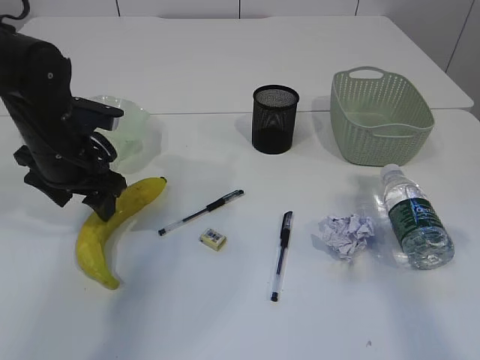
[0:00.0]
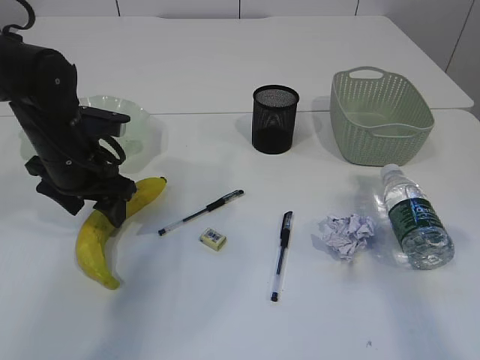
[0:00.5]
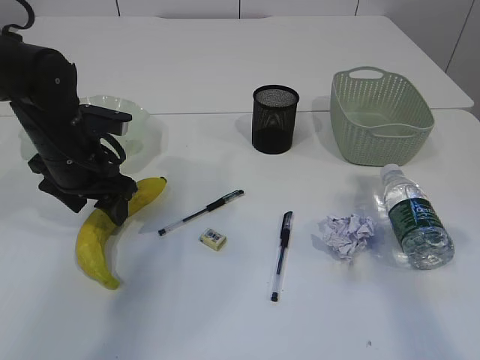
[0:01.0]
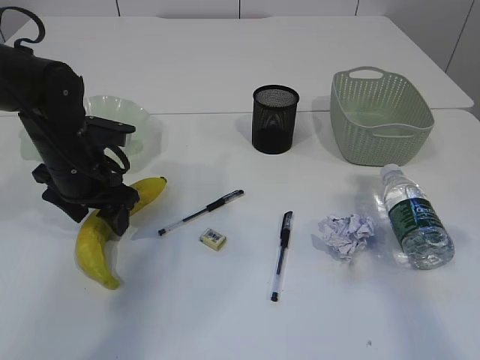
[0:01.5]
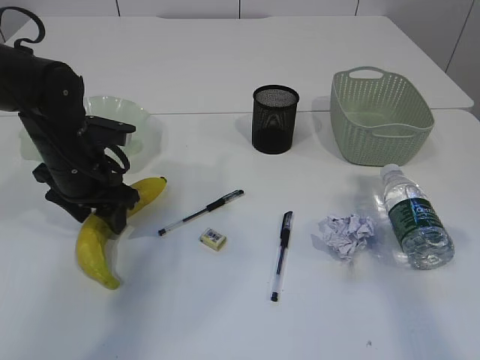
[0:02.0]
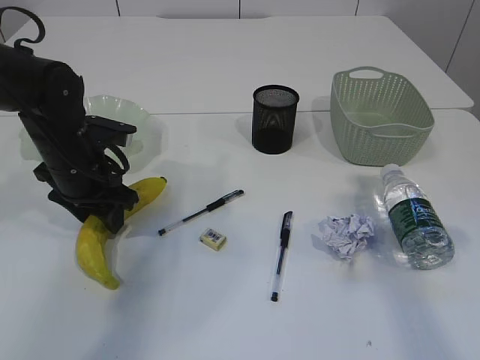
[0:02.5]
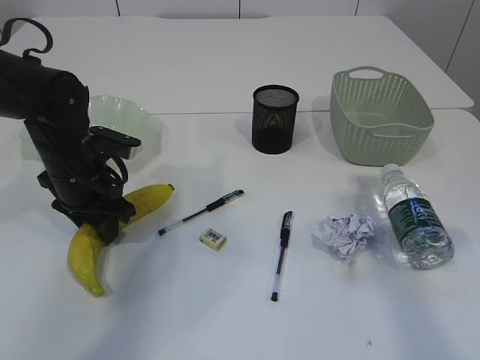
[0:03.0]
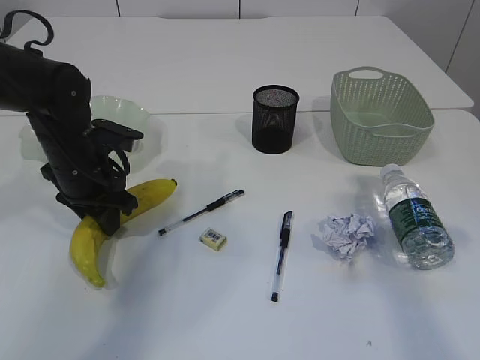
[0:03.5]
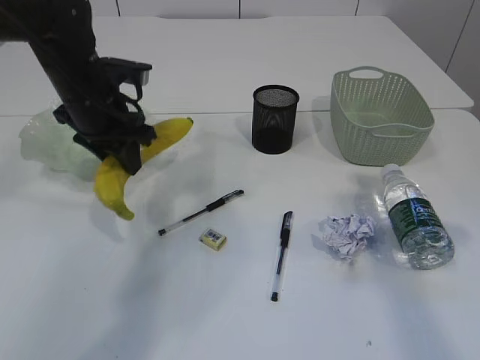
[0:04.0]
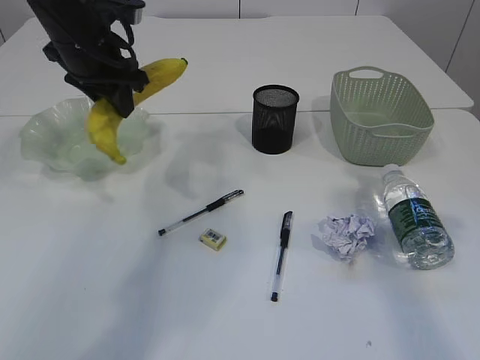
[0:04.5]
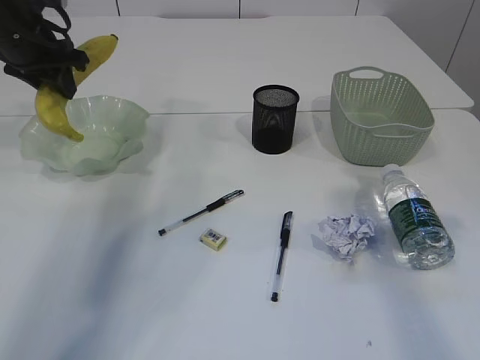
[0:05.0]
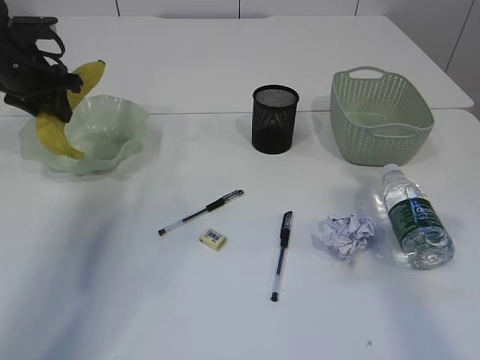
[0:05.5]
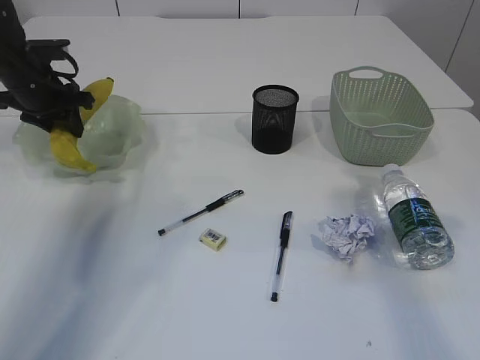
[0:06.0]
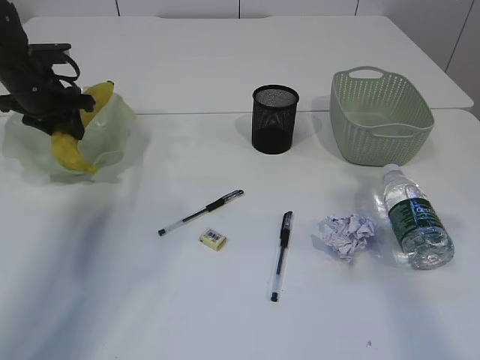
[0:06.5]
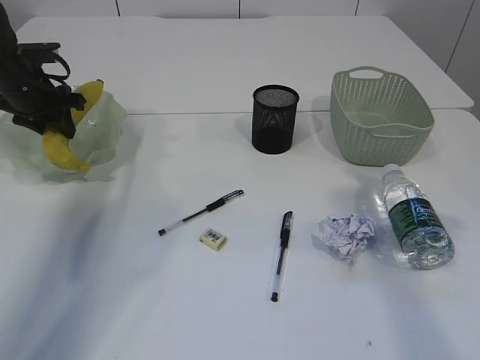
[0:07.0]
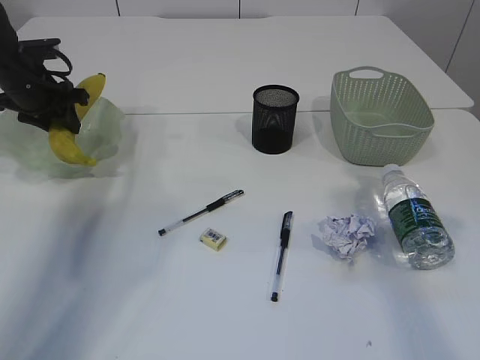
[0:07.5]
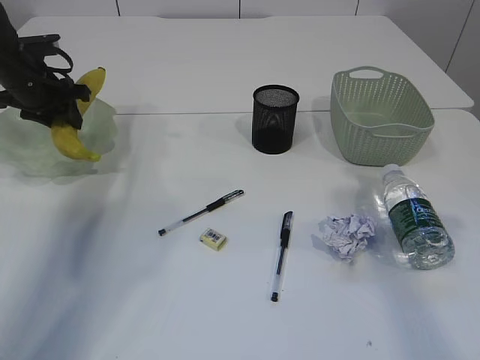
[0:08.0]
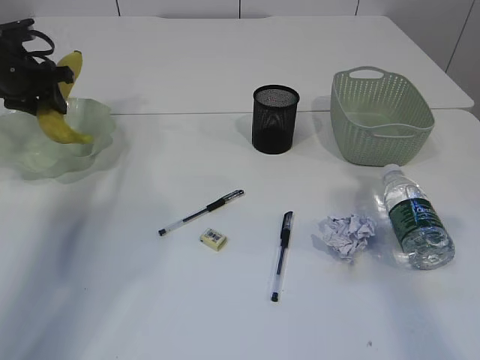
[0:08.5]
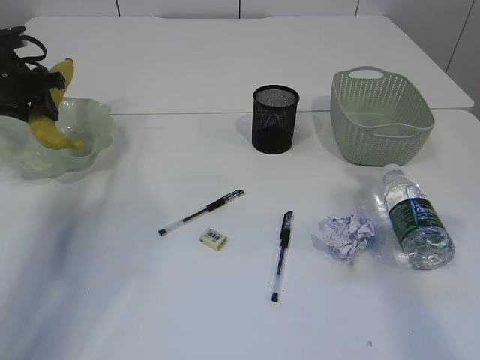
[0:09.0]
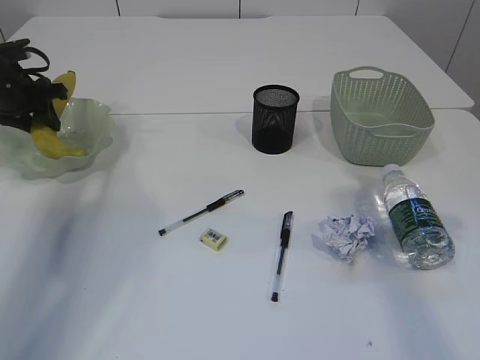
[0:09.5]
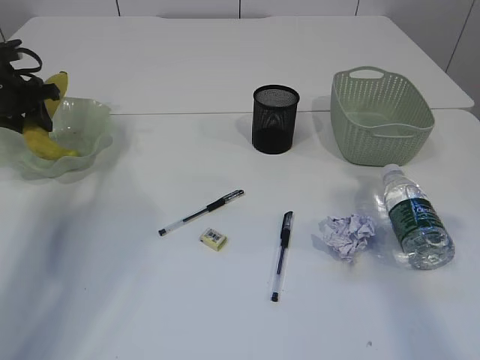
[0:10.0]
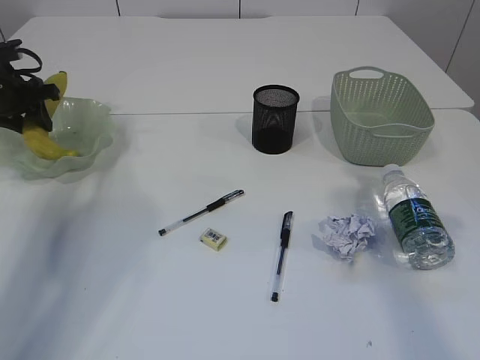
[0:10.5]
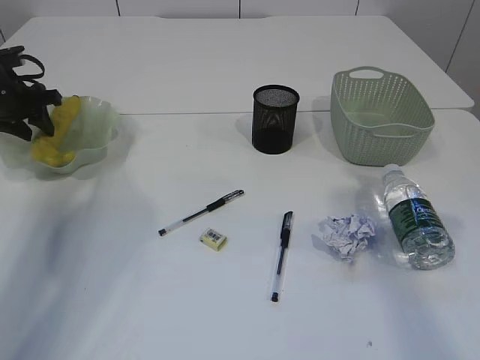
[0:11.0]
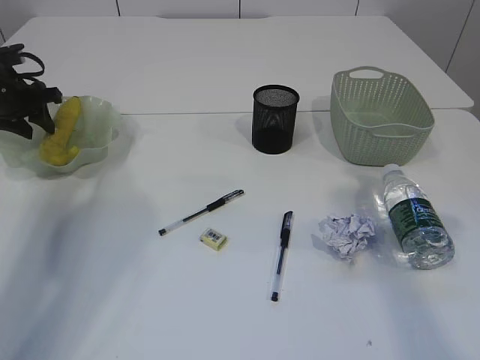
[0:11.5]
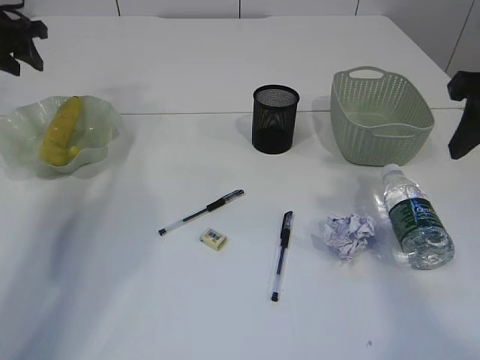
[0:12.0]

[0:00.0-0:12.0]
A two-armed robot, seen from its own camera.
Step, 0:04.0 to 0:11.5: Place the banana in the plate.
0:00.0 to 0:02.0: The grippers make only small movements.
0:02.0 to 0:04.0: The left gripper heads upward, covering about 5 cm, and closes up.
0:04.0 to 0:06.0: The left gripper is displaced to the left and forward by approximately 15 cm.
0:06.0 to 0:08.0: The grippers make only small movements.
0:08.0 to 0:10.0: The left gripper travels to the left by some 5 cm.
0:10.0 to 0:12.0: The left gripper is displaced upward by roughly 10 cm.

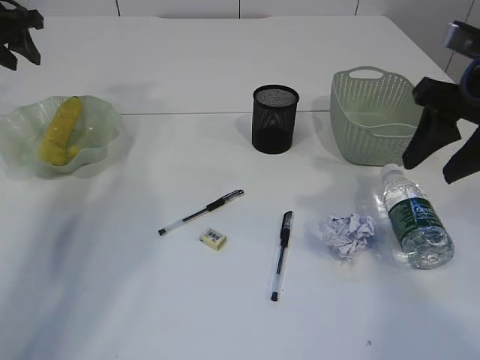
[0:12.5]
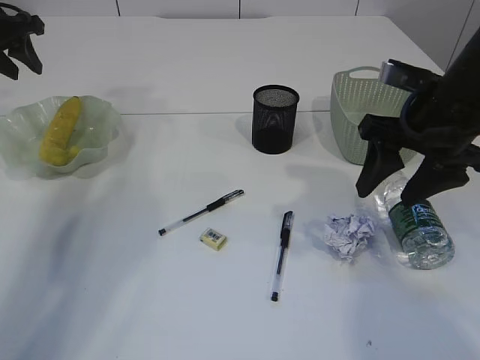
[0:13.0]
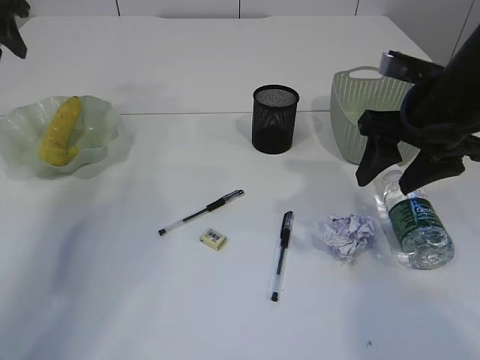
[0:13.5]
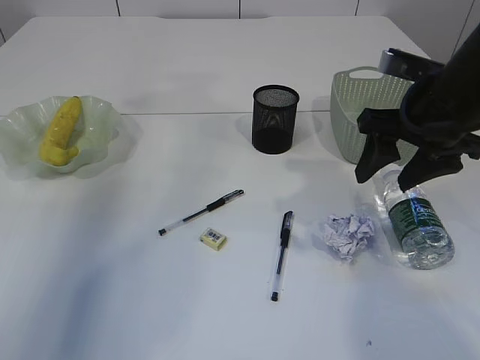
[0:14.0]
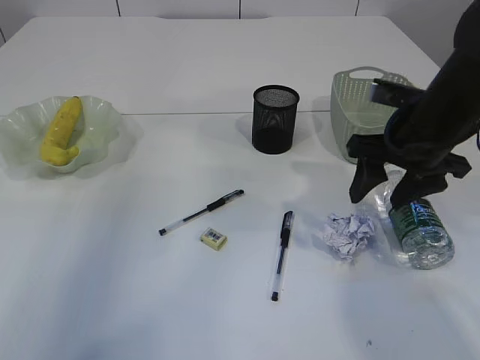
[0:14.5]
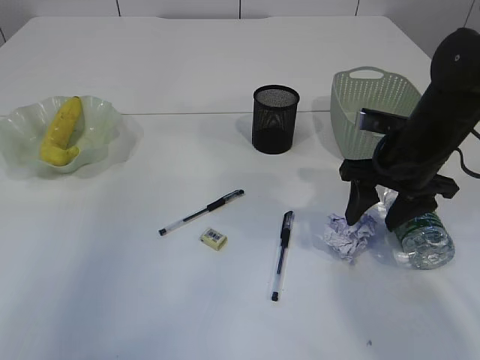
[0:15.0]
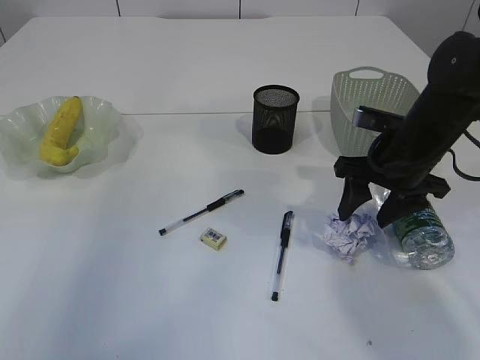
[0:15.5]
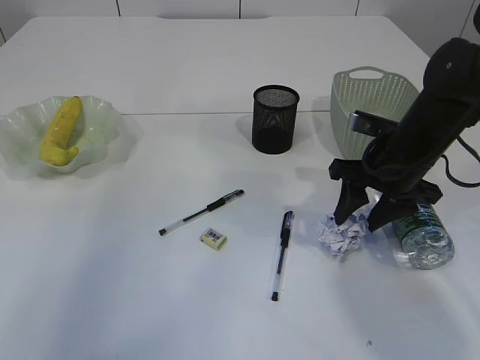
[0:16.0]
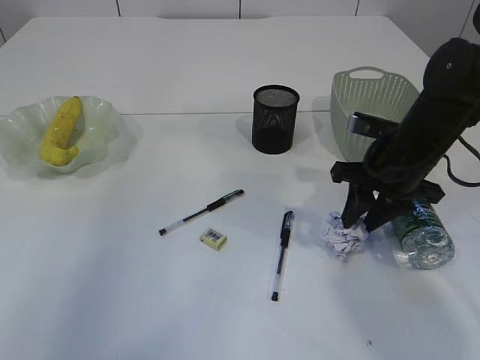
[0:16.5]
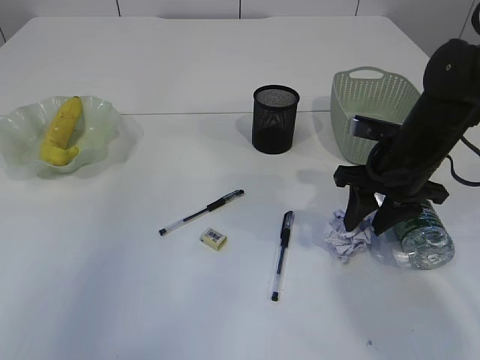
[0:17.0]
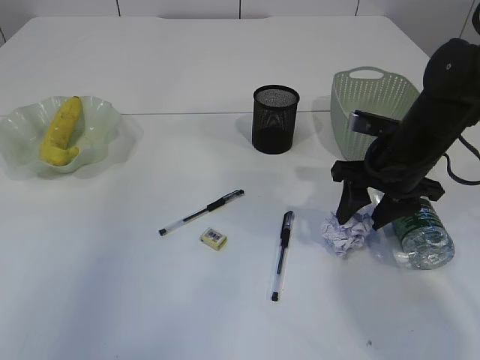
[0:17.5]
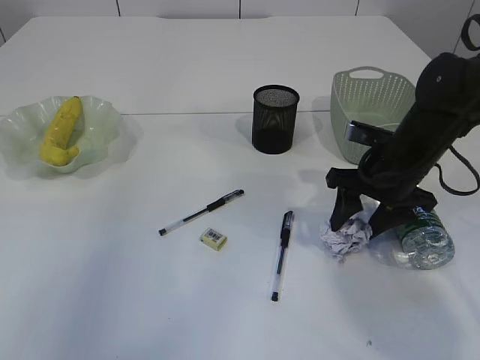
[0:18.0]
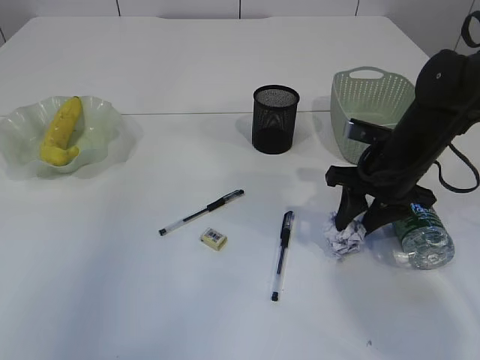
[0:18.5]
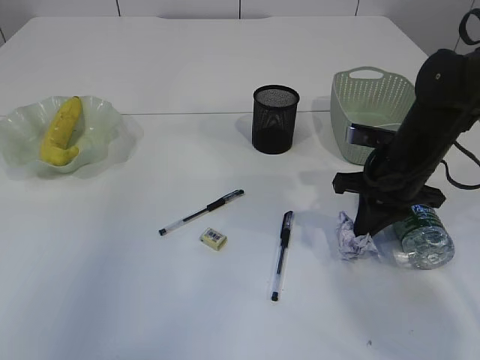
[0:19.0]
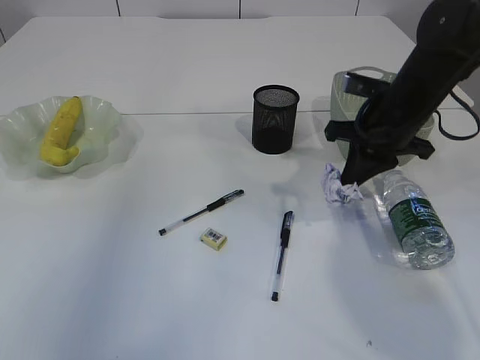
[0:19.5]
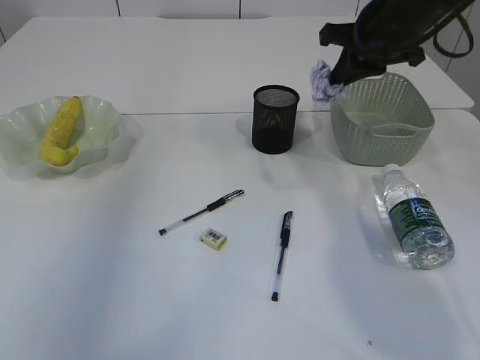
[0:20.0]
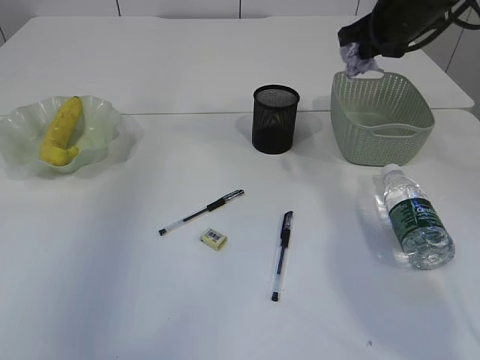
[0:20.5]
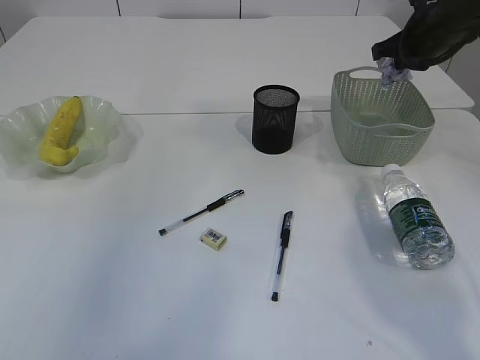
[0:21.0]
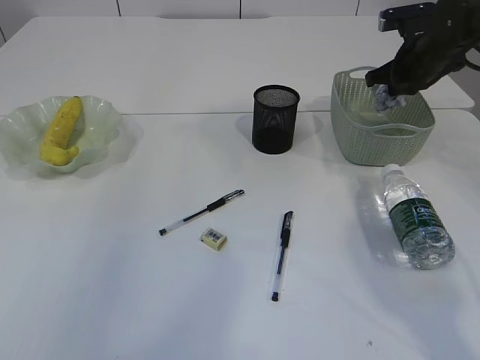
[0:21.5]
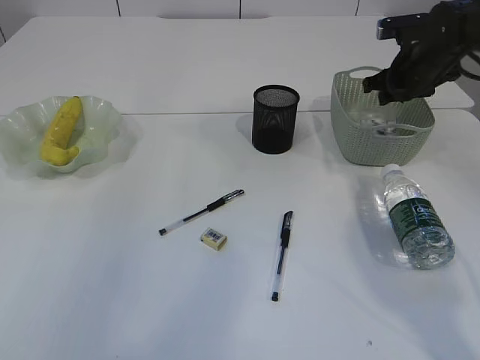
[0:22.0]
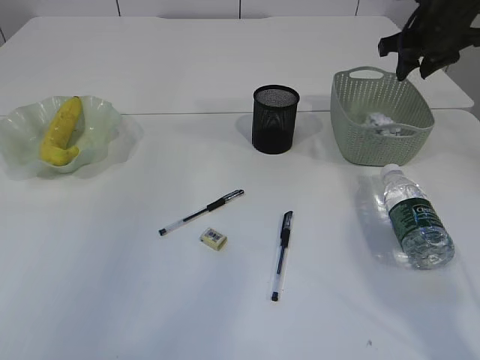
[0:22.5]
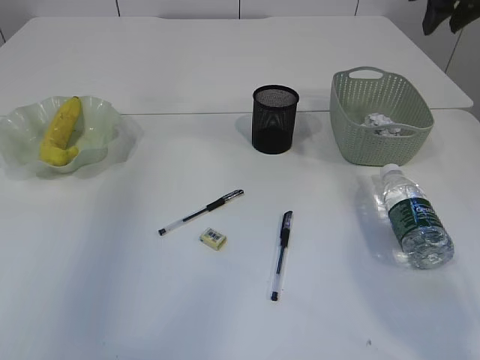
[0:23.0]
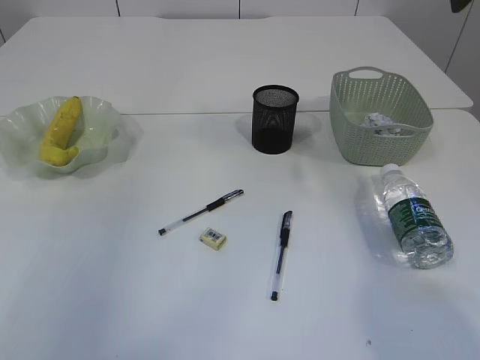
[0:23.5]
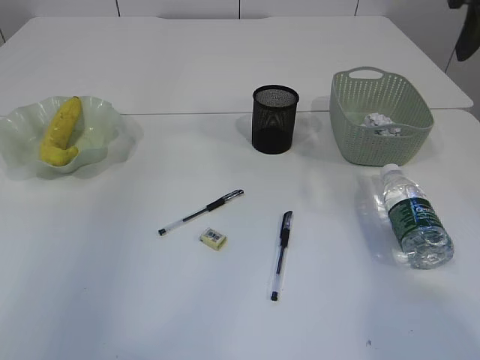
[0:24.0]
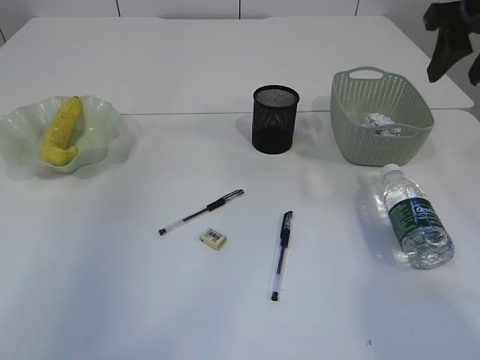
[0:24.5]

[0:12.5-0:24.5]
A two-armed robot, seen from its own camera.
Step, 0:12.5 to 0:19.5: Pick up the waste paper.
Step, 0:20.0 to 0:22.0: Place the waste paper in the basket.
0:12.5 to 0:14.5: The left gripper goes about 40 cm upward and backward. Meanwhile the right gripper is displaced downward by some 5 cm.
0:14.5 to 0:16.5: The right gripper moves downward, about 5 cm, and closes up.
0:16.5 to 0:18.5: There are only small adjustments of the grippers.
0:18.5 to 0:20.5: The right gripper travels upward and forward by about 15 cm, and closes its fingers.
0:20.5 to 0:22.5: The right gripper goes some 5 cm to the right, travels downward and back again, about 10 cm each way, and opens its fingers.
0:22.5 to 0:24.5: The right gripper is displaced backward and upward by some 15 cm.

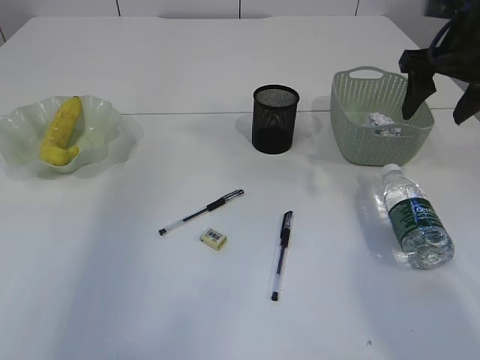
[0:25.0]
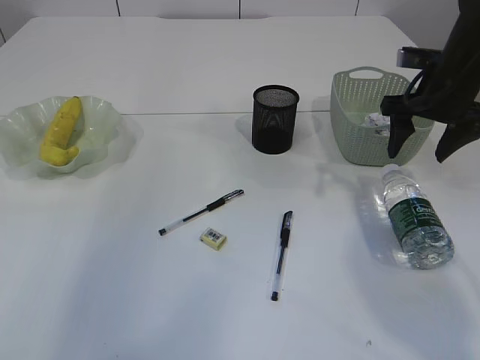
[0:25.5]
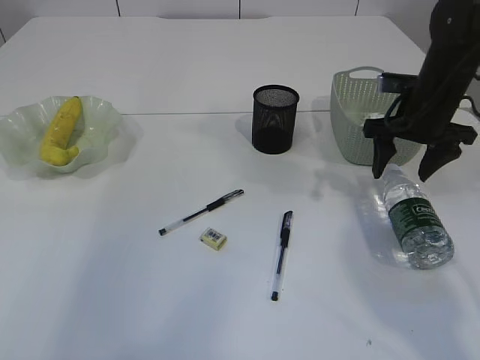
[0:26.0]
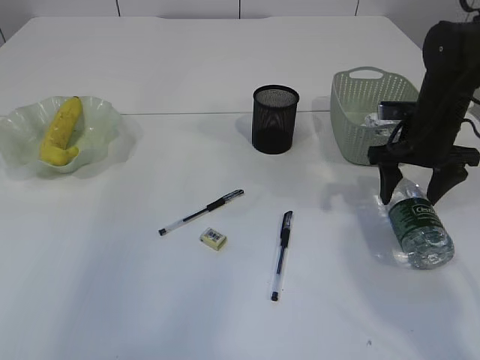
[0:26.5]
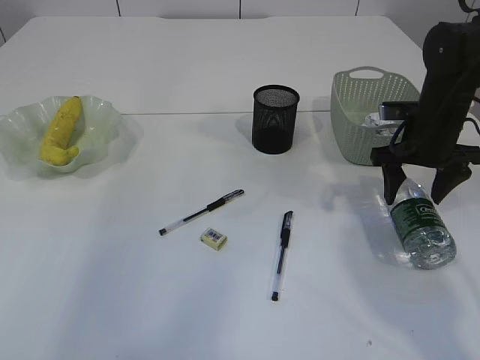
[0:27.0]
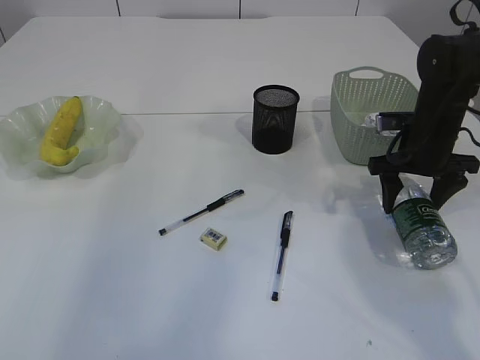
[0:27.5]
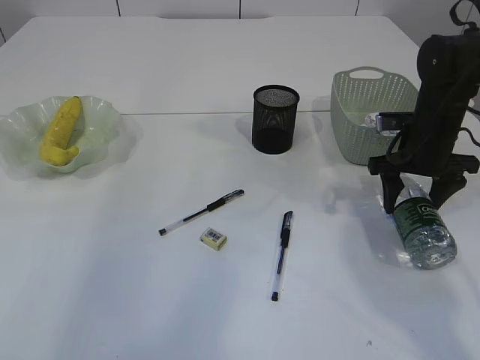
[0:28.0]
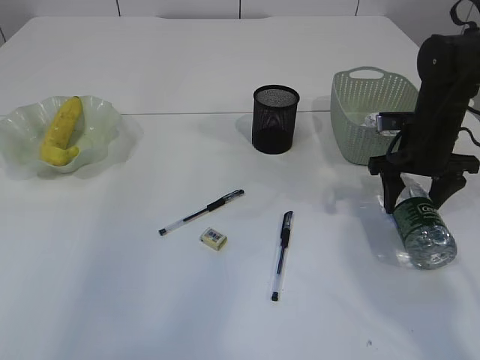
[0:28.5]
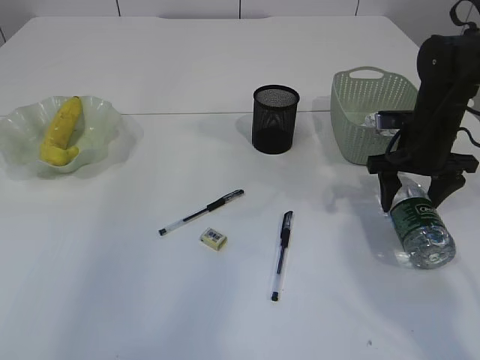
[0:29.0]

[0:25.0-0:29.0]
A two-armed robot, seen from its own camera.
0:25.0 to 0:27.0: The right gripper is displaced downward by about 15 cm.
0:27.0 to 0:29.0: The grippers stay close to where they were, moving slightly.
